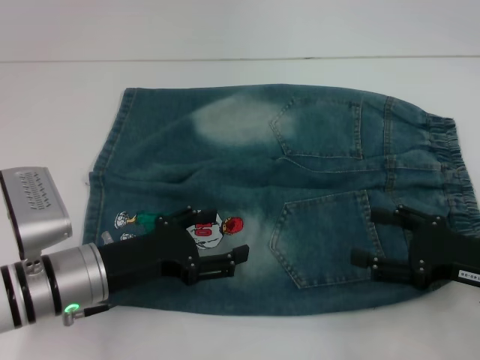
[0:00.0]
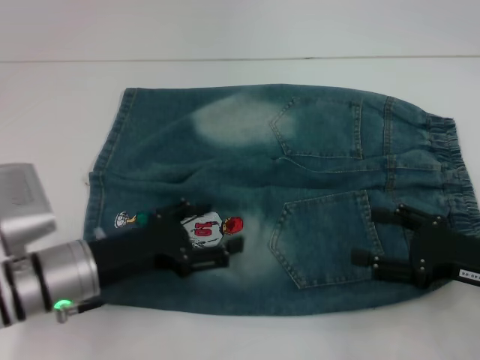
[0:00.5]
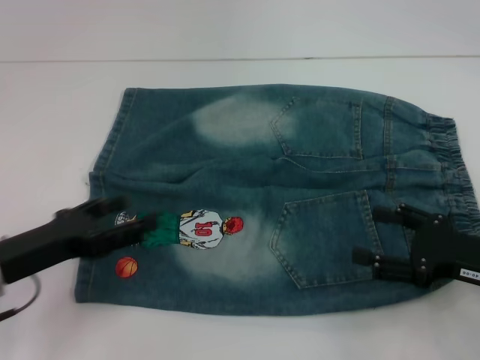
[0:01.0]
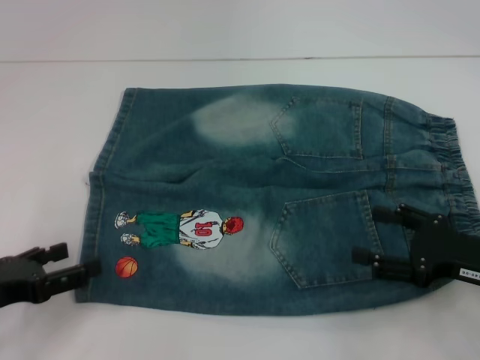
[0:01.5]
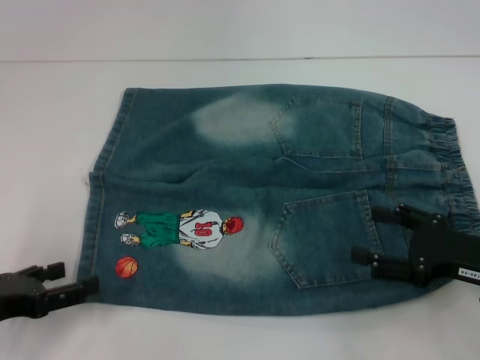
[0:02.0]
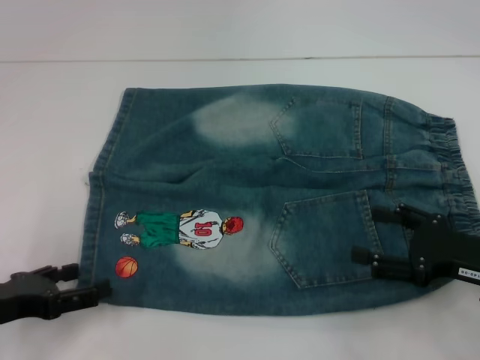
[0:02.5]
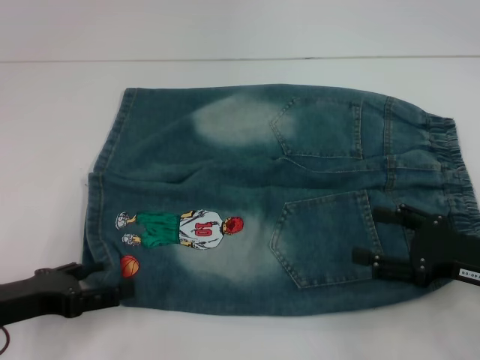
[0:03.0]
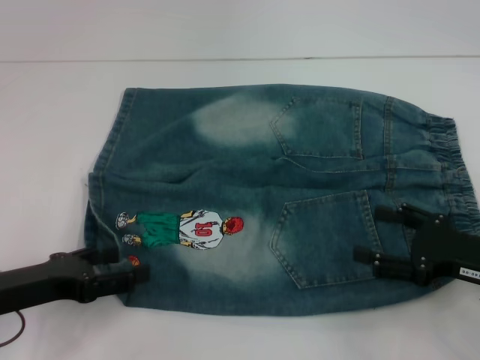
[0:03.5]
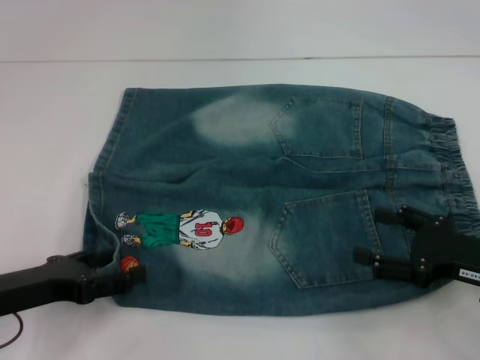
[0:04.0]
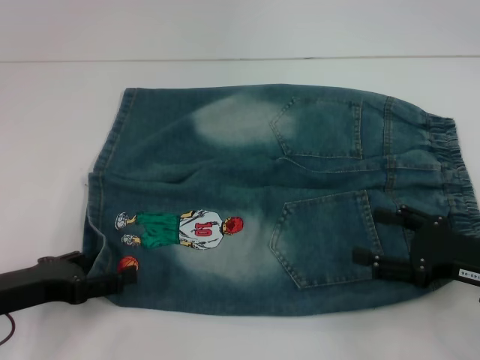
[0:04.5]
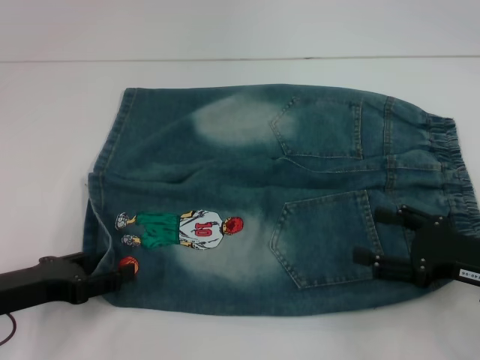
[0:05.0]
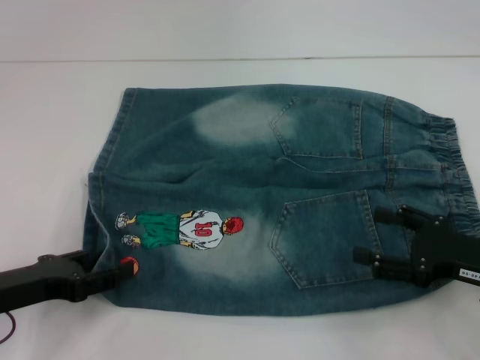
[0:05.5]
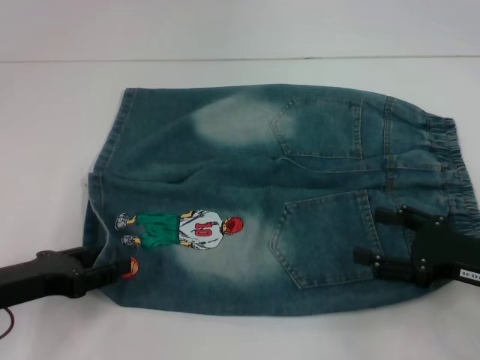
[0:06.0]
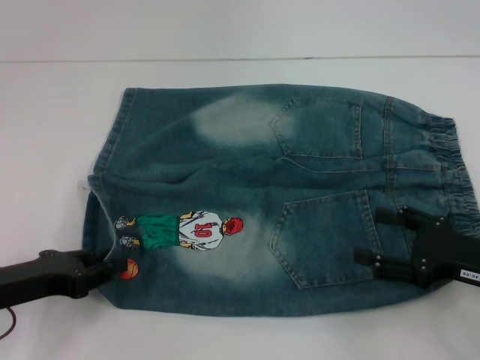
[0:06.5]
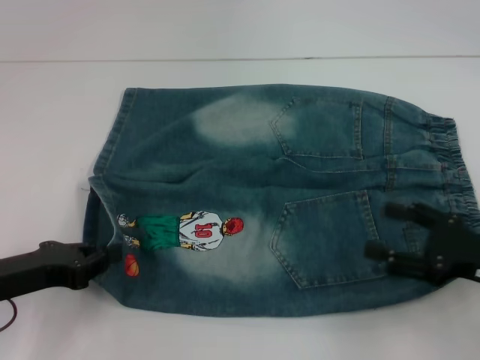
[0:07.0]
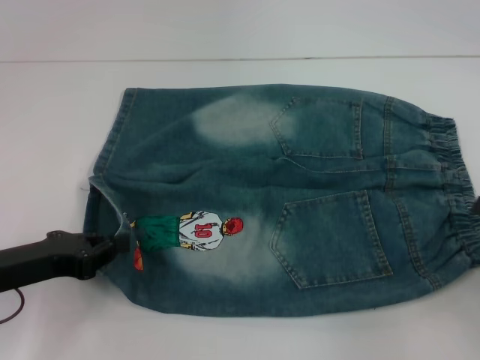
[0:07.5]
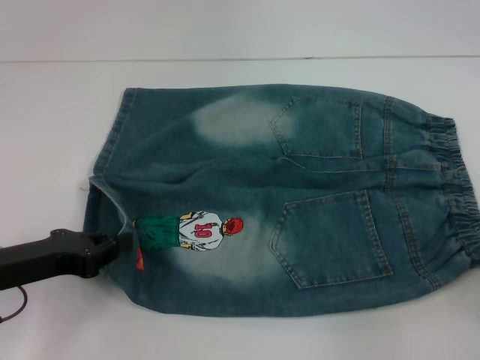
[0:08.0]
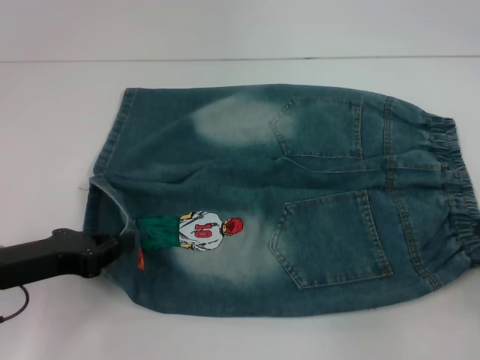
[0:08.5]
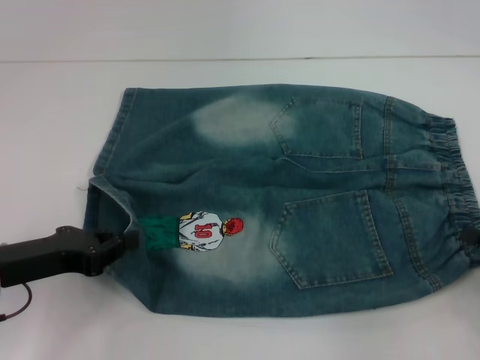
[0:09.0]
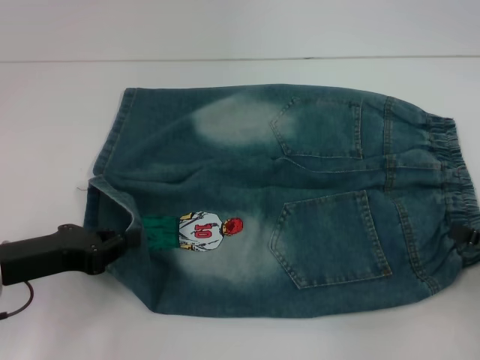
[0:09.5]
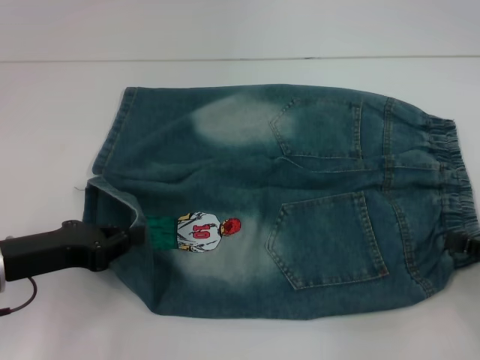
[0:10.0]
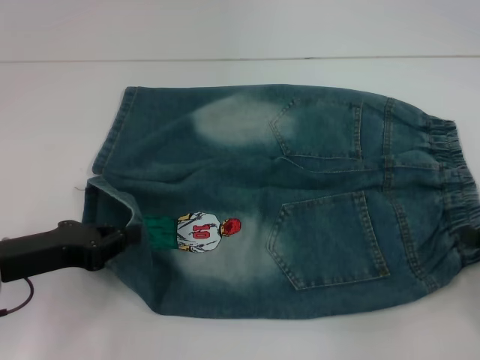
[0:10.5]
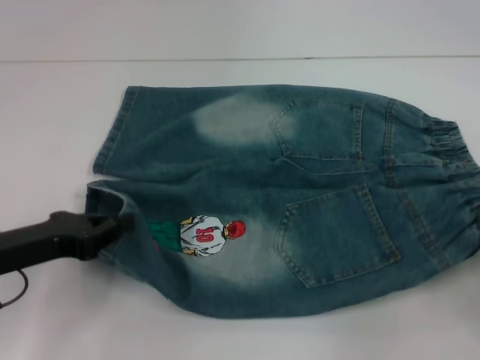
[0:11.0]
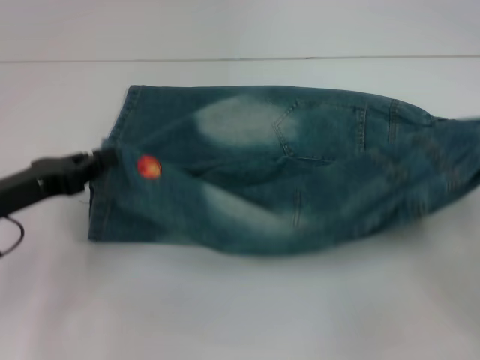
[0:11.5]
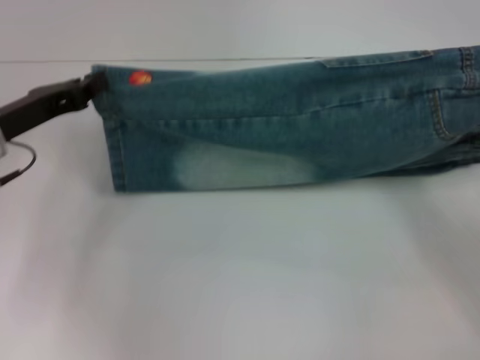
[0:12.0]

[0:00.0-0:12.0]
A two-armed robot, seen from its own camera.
Step, 0:00.0 to 0:07.0: Grab the lower left pant leg with your left hand.
Step, 0:07.5 to 0:10.5: Hold the lower right waistband with your right hand.
0:00.0 to 0:02.0: The left gripper is displaced to the left and backward by about 15 cm.
0:02.0 to 0:04.0: There are only small adjustments of the grippers.
0:04.0 to 0:06.0: Neither gripper changes place.
0:06.0 to 0:08.0: The left gripper closes its fingers. Meanwhile the right gripper heads to the right, covering about 10 cm.
0:08.0 to 0:10.0: The grippers make only small movements.
0:10.0 to 0:12.0: The right gripper is displaced forward by about 5 cm, and closes up; the left gripper heads forward, covering roughly 10 cm.

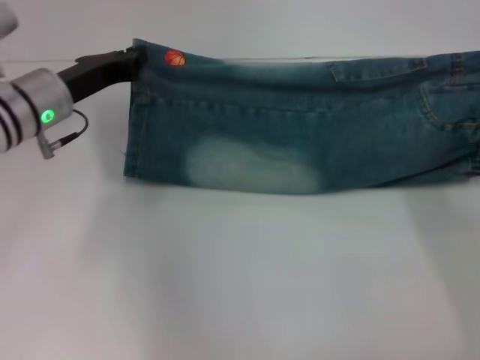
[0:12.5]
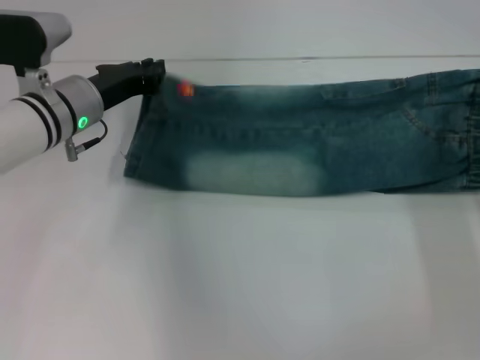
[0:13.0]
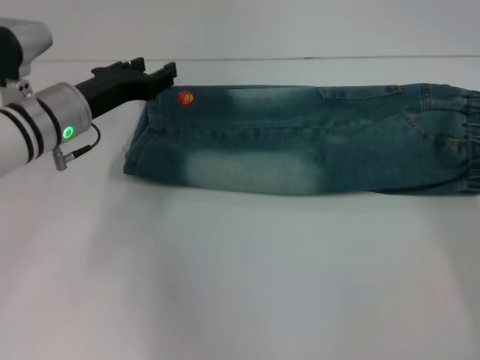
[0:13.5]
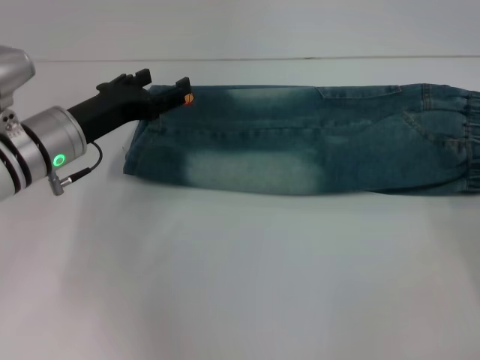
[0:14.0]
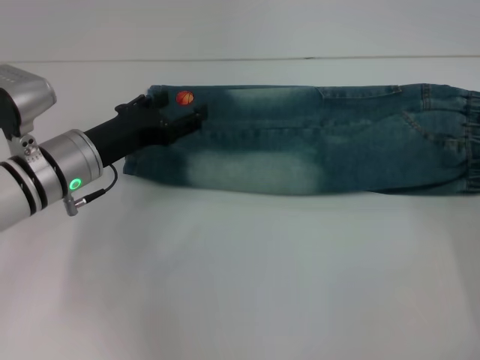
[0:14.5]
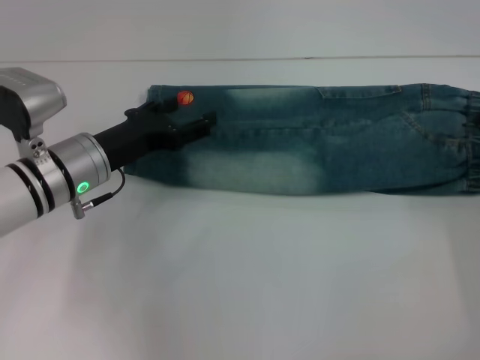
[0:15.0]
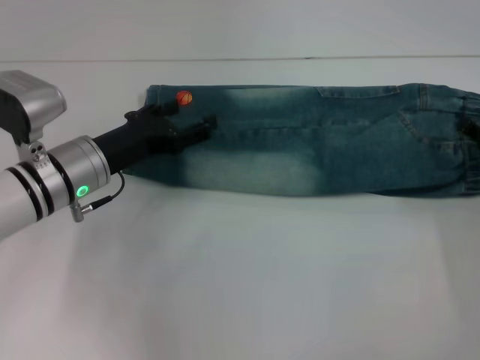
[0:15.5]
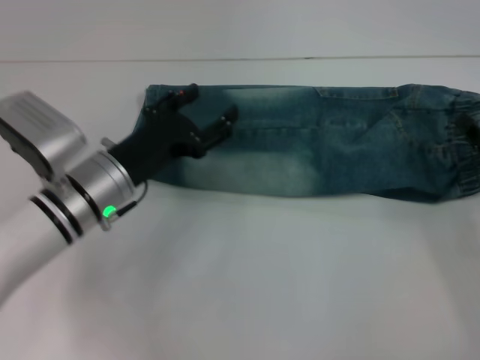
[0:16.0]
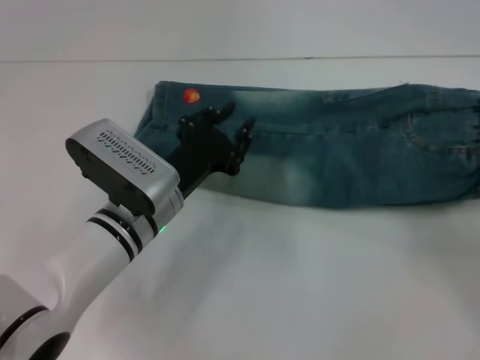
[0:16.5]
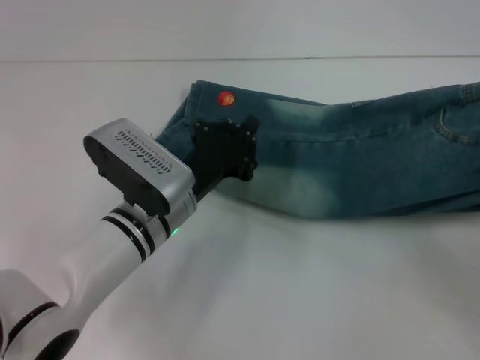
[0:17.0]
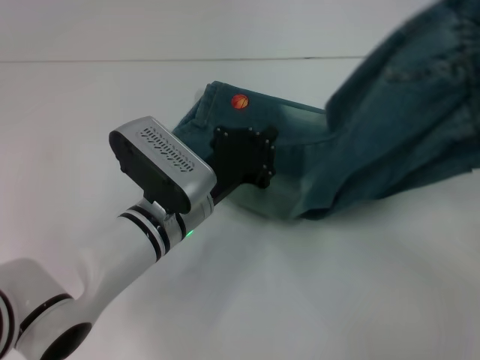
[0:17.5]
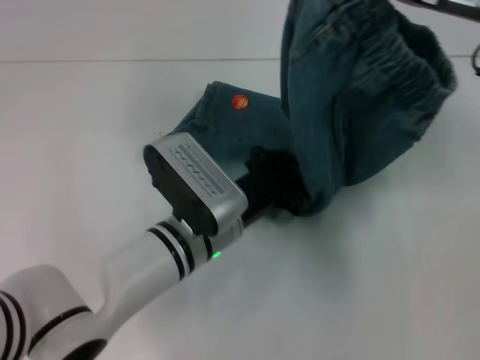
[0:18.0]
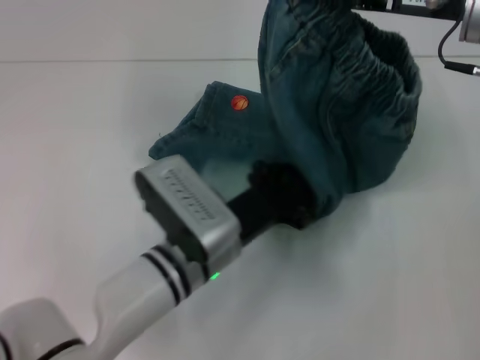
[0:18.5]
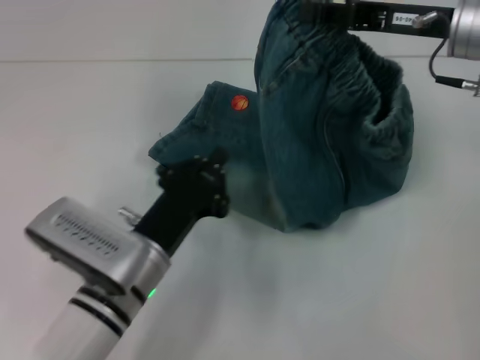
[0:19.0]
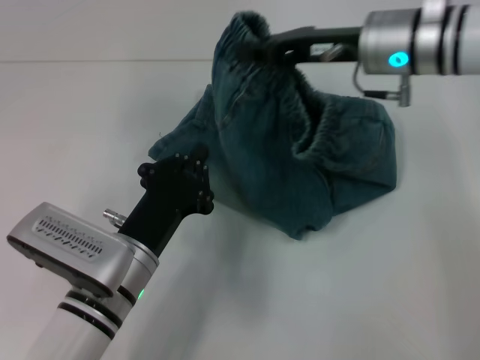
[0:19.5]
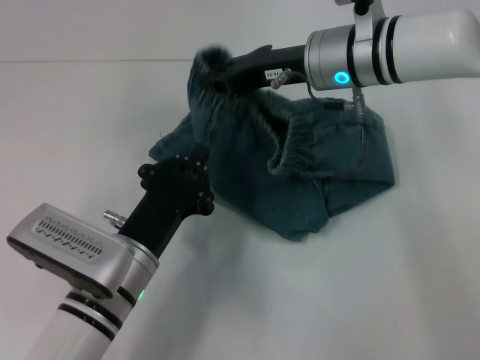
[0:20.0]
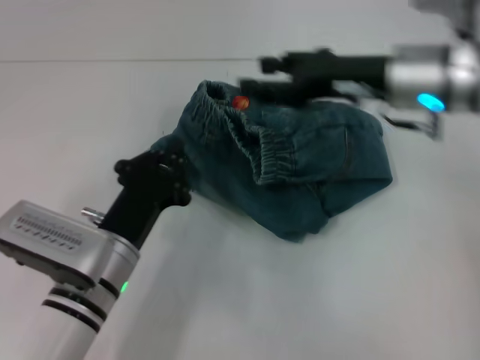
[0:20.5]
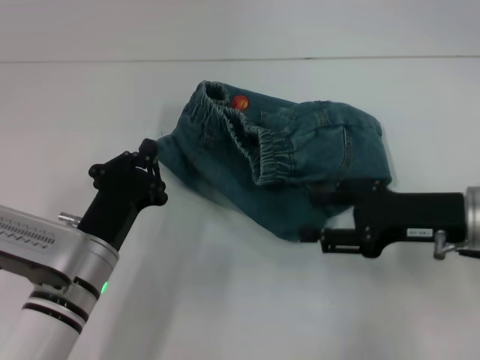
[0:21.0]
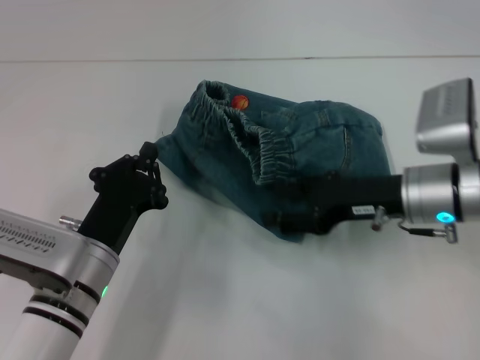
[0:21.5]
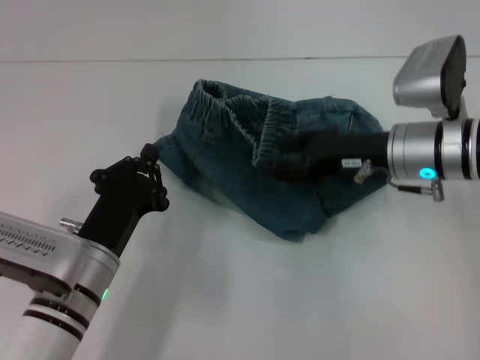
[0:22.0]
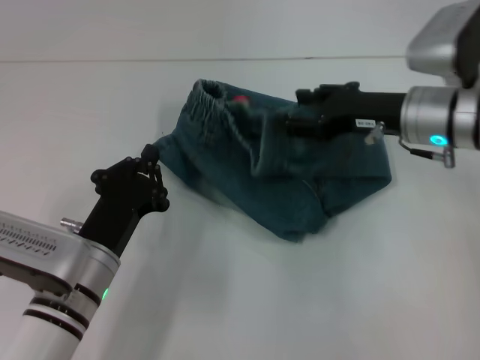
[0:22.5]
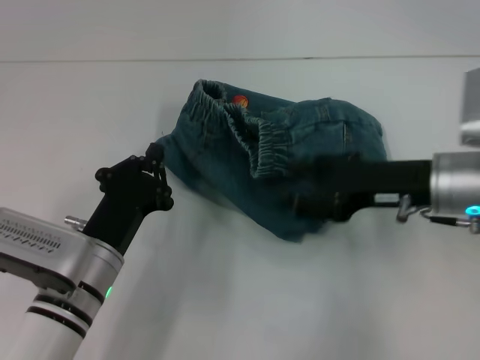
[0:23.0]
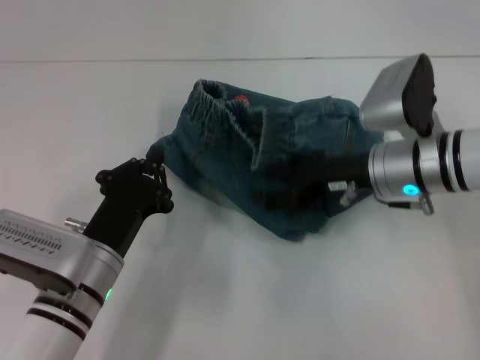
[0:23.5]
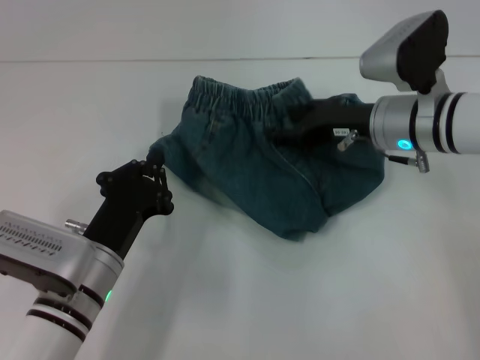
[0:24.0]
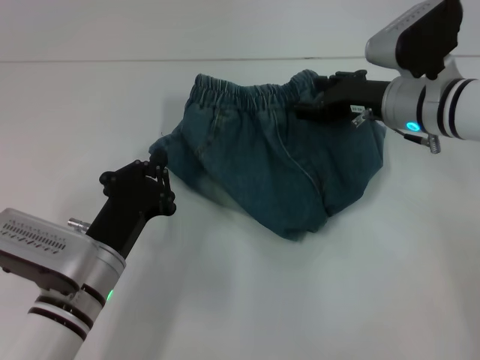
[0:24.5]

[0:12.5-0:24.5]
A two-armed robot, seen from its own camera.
Step, 0:14.0 to 0:16.0: Grab the waistband with your right hand.
Step, 0:16.5 to 0:18.5: Press the middle of the pants with your left hand.
Step, 0:19.0 to 0:20.5: Fold to the left with your right hand.
0:12.5 to 0:14.5: The left gripper ends up about 5 cm from where it was, and opens up. Meanwhile the right gripper opens its fingers.
0:14.5 to 0:16.5: The left gripper travels to the right by some 10 cm, and closes, while the right gripper shifts by some 5 cm, and closes.
0:16.5 to 0:18.5: The right gripper goes roughly 25 cm upward, forward and to the left. The left gripper is displaced to the right by roughly 5 cm, and closes its fingers.
0:18.5 to 0:20.5: The right gripper travels downward by approximately 5 cm, goes to the left and returns, about 10 cm each way, and opens up, while the left gripper travels to the left by approximately 10 cm.
0:20.5 to 0:22.5: The right gripper travels backward and back again, some 10 cm each way.
0:22.5 to 0:24.5: The right gripper goes backward and returns, some 5 cm each way.

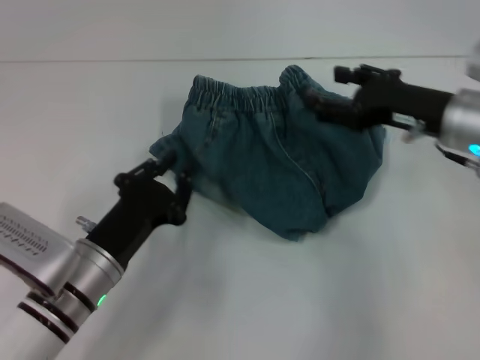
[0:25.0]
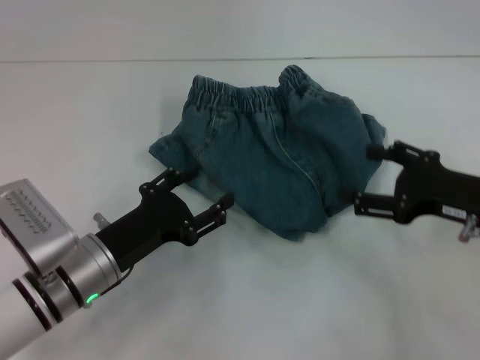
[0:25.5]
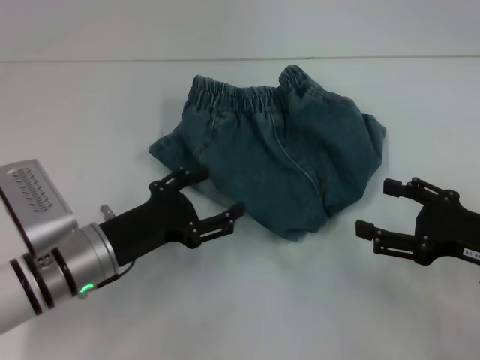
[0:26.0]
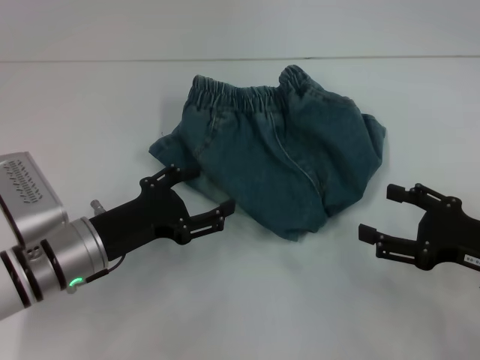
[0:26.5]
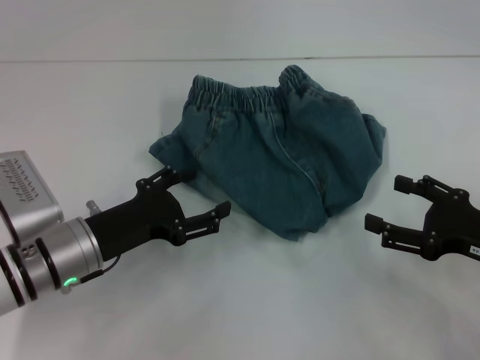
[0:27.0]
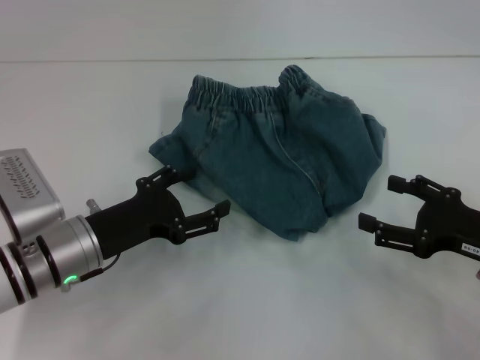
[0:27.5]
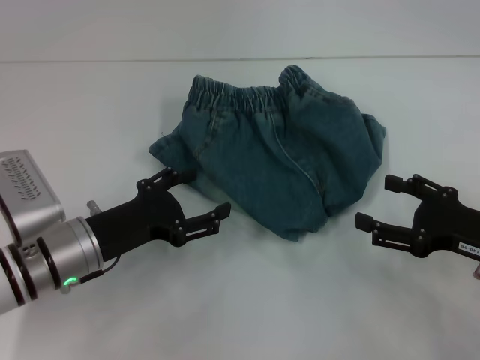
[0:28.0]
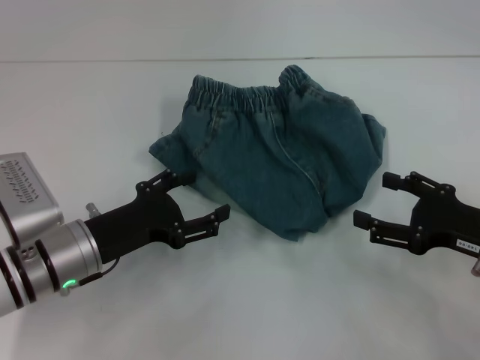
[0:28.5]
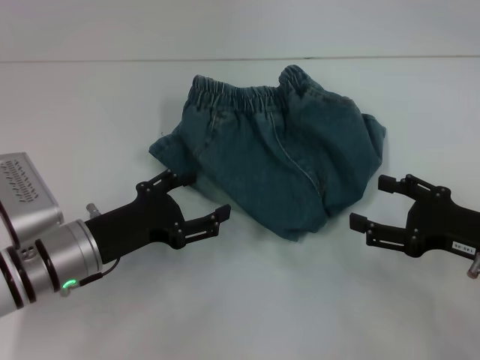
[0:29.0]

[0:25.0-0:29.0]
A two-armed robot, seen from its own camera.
0:25.0 to 0:27.0: The left gripper opens. The right gripper heads backward, to the right and downward, covering roughly 15 cm.
0:27.0 to 0:29.0: The grippers move only a little.
